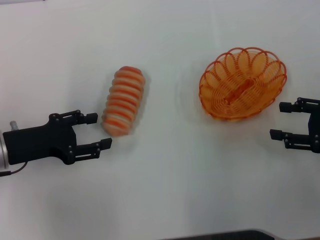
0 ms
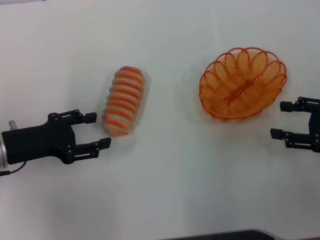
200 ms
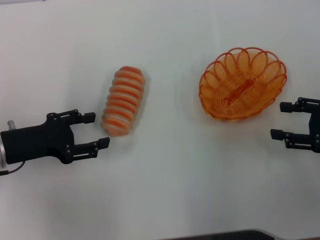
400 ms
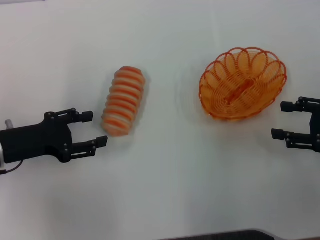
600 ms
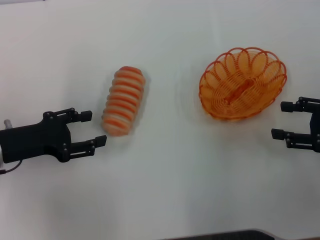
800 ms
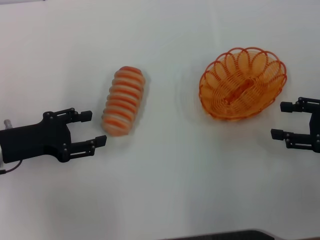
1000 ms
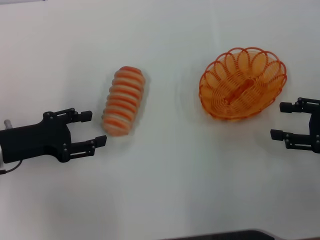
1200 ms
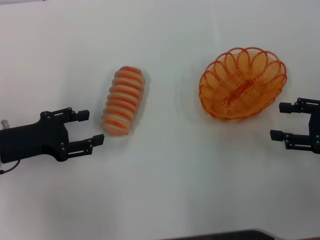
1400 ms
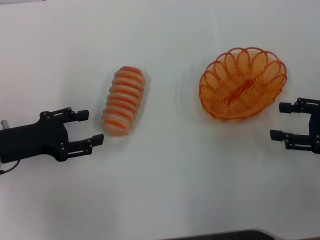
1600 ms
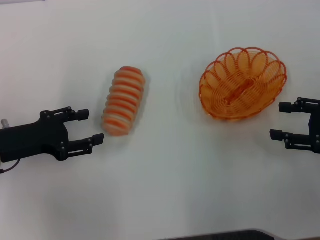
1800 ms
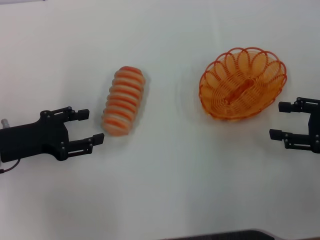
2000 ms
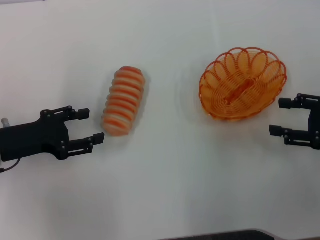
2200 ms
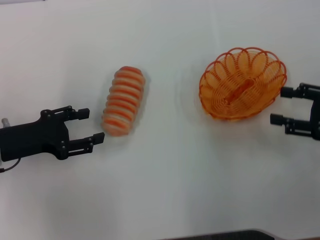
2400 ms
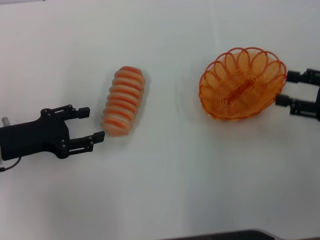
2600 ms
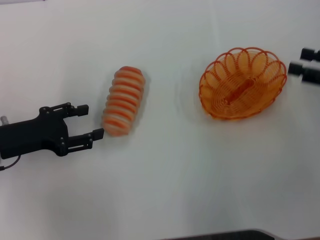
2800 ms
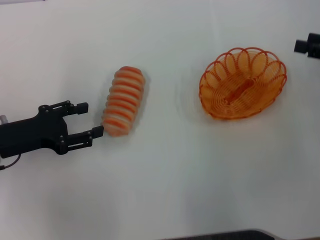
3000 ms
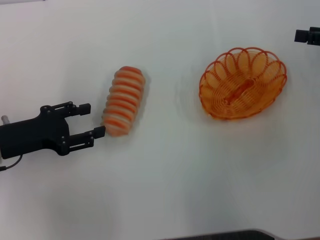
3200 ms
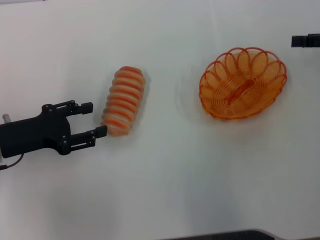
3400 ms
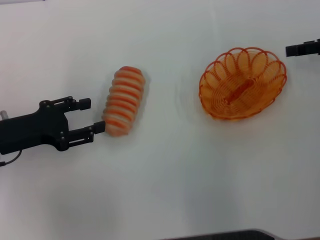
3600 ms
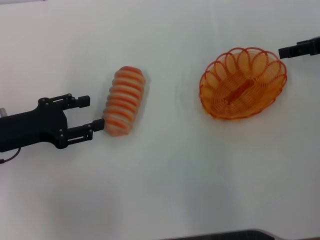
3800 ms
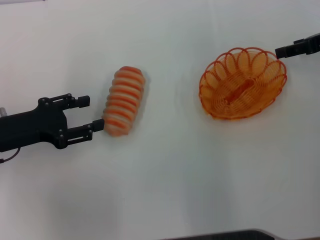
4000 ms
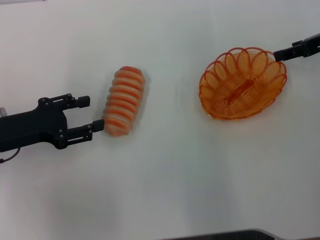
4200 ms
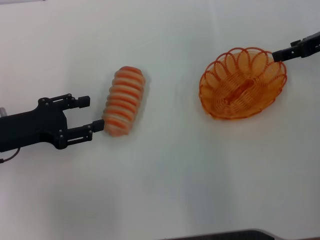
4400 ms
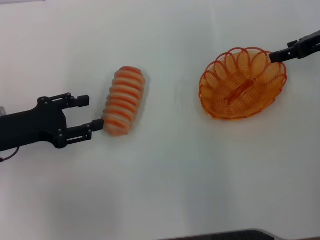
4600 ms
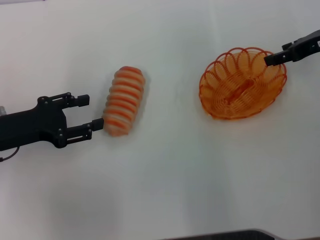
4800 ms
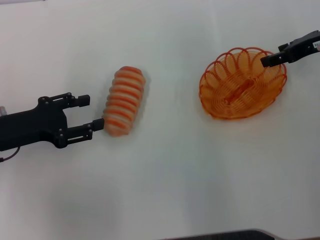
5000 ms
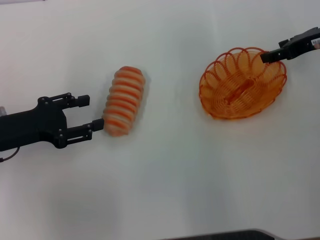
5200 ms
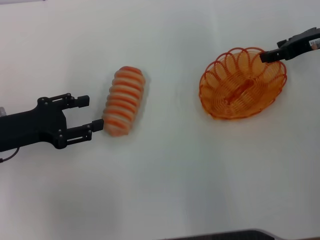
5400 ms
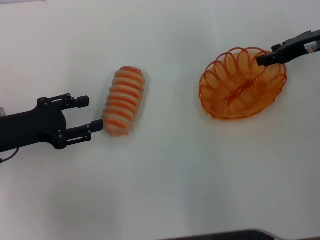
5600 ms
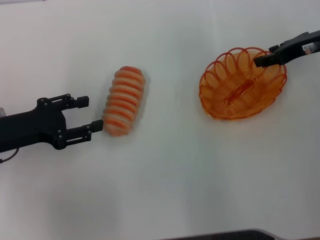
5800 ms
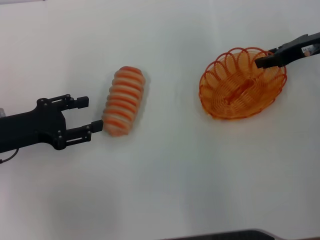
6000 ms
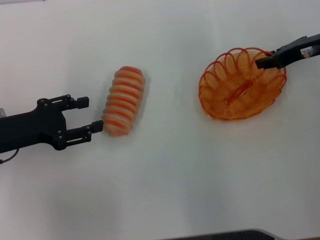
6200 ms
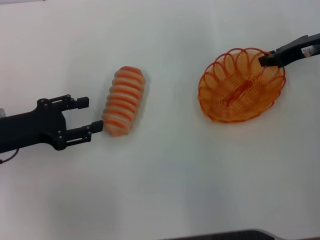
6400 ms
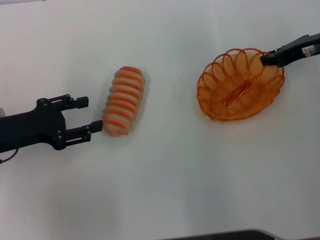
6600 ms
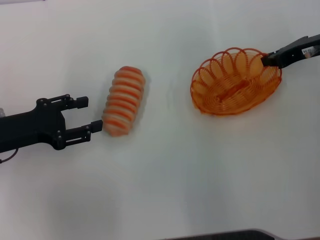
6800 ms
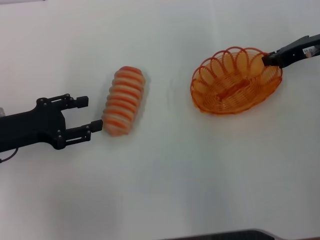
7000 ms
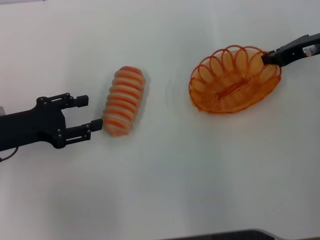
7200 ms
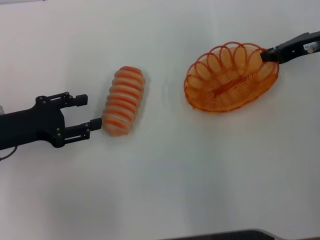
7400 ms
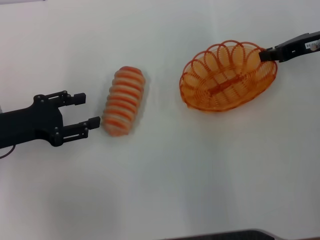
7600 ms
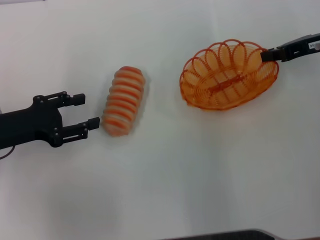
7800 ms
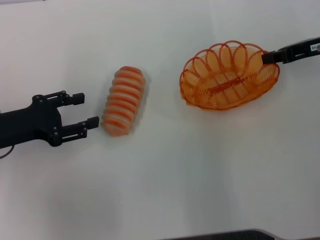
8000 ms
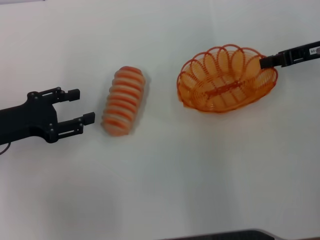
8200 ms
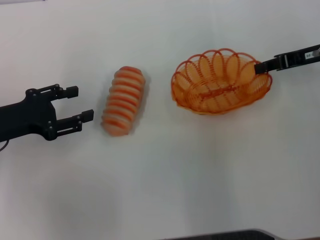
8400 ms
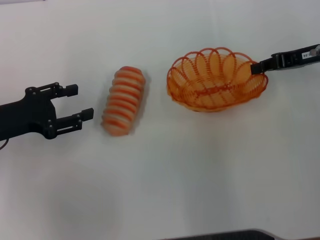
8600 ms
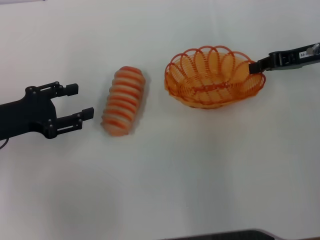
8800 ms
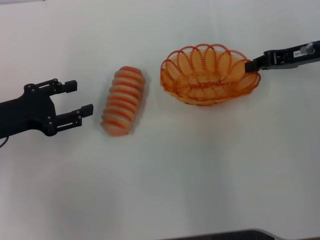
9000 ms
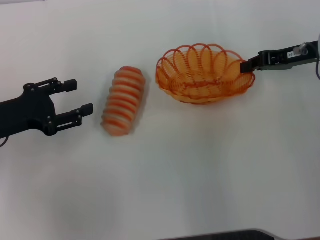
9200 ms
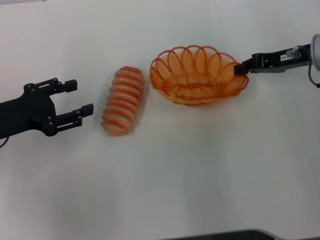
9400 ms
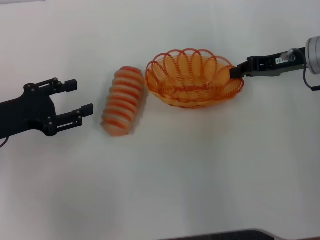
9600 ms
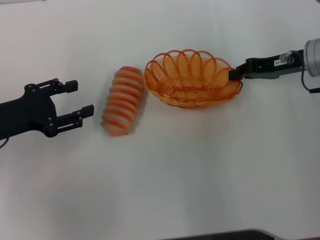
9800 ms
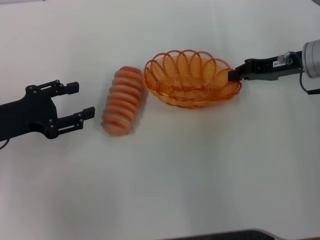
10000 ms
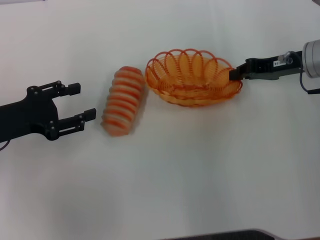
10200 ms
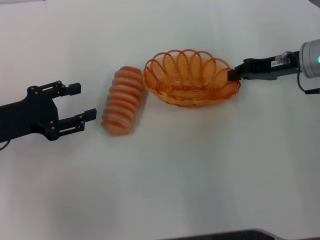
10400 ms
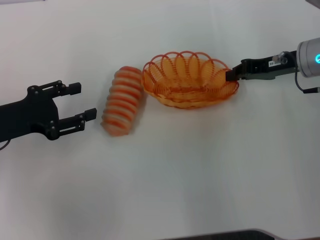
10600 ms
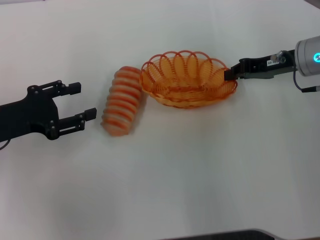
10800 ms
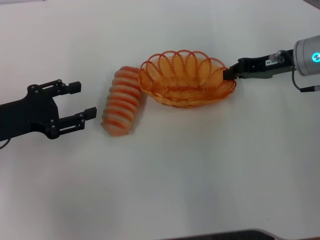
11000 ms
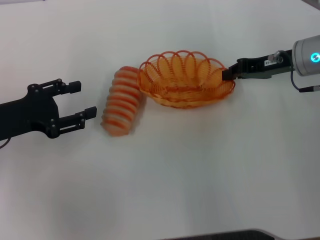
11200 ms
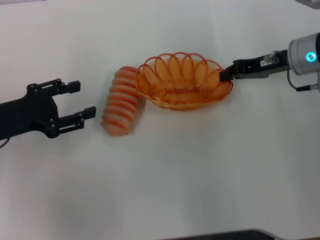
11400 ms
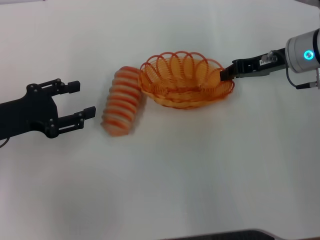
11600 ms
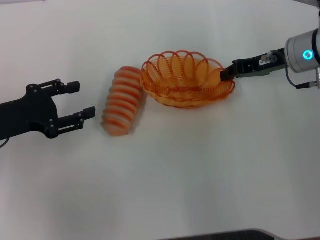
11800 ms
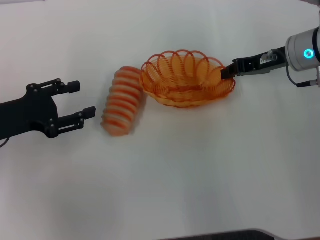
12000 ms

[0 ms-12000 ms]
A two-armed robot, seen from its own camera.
Step, 0 ms to 7400 ms: Pick up the basket with the right gripper.
0 ms to 1600 ms: The two grippers keep their place.
1600 ms to 3000 ms: The right gripper heads forward and upward, covering some 10 cm.
3000 ms to 4400 ms: The right gripper shifts roughly 10 cm forward.
4400 ms to 6000 ms: The grippers move only a little.
6000 ms to 7600 ms: The right gripper closes its fingers.
9000 ms to 12000 ms: The grippers make only small movements.

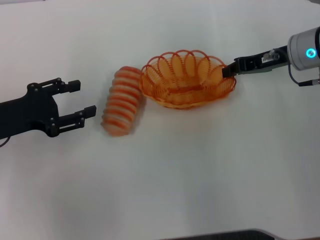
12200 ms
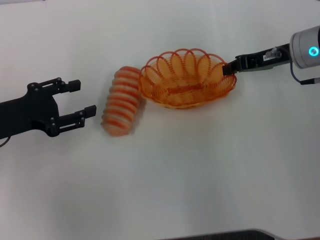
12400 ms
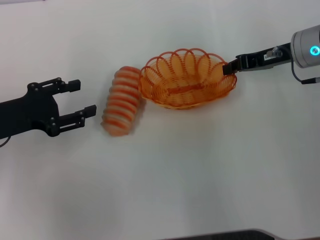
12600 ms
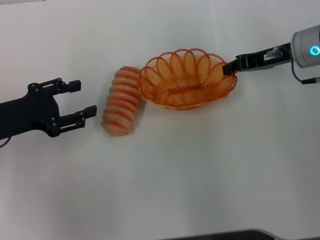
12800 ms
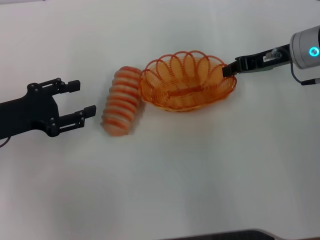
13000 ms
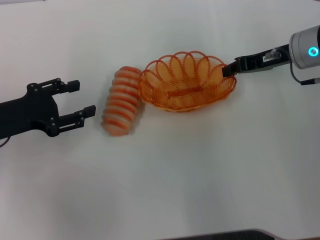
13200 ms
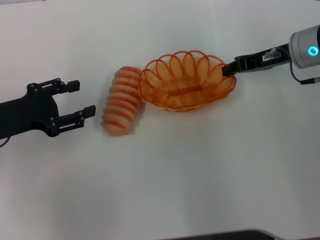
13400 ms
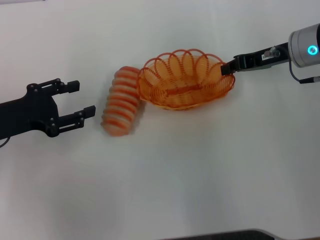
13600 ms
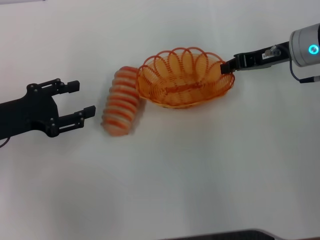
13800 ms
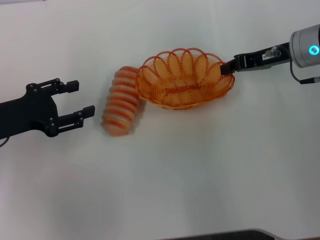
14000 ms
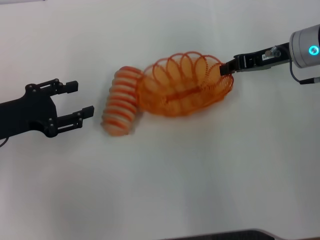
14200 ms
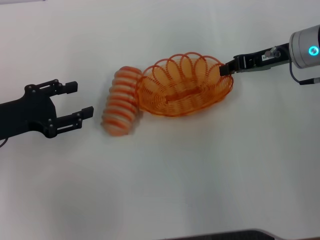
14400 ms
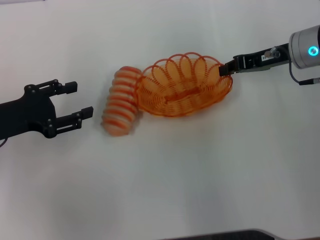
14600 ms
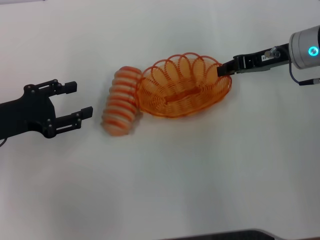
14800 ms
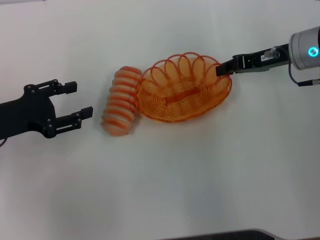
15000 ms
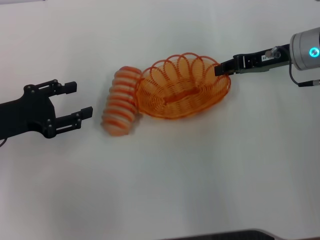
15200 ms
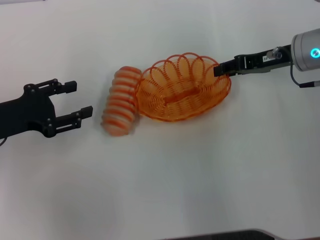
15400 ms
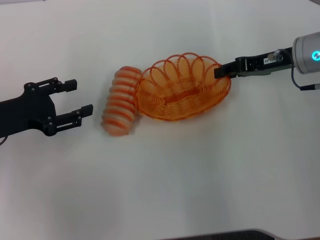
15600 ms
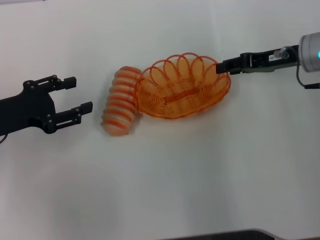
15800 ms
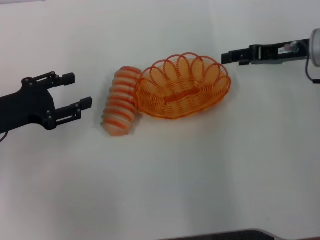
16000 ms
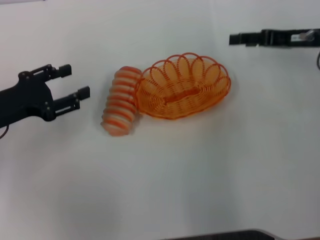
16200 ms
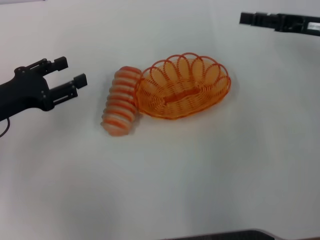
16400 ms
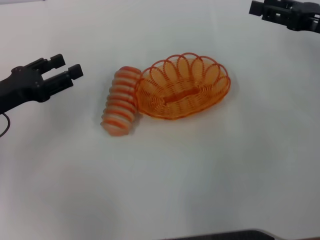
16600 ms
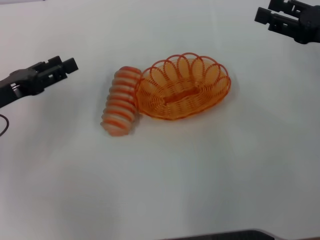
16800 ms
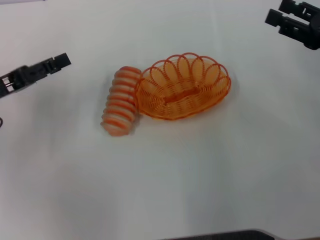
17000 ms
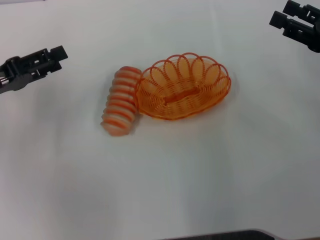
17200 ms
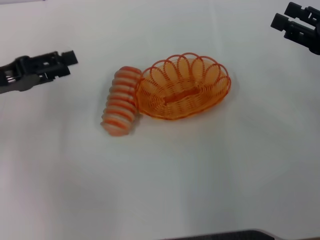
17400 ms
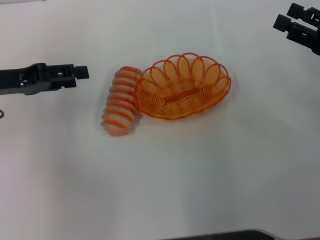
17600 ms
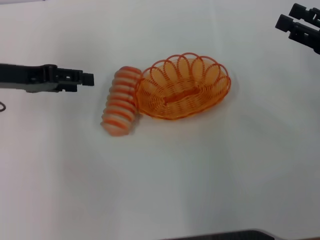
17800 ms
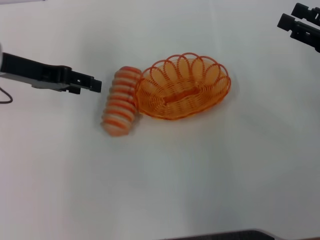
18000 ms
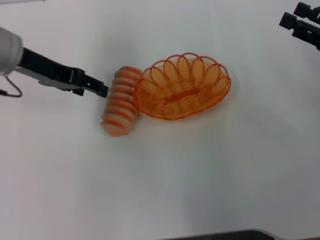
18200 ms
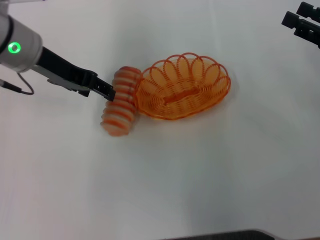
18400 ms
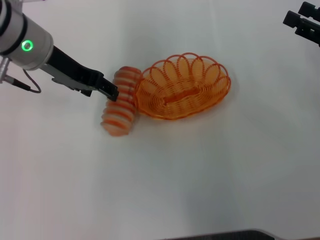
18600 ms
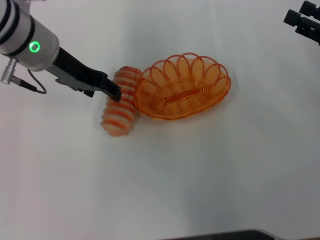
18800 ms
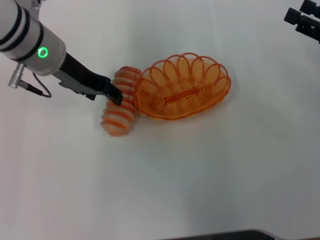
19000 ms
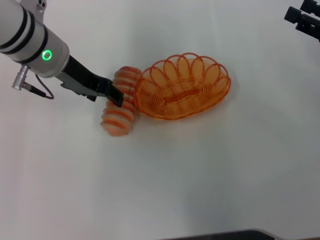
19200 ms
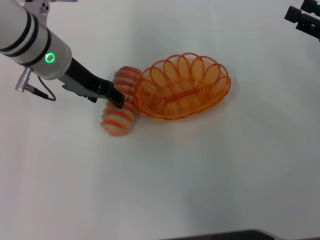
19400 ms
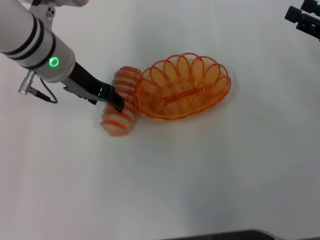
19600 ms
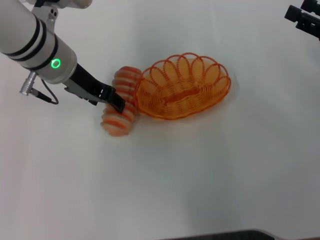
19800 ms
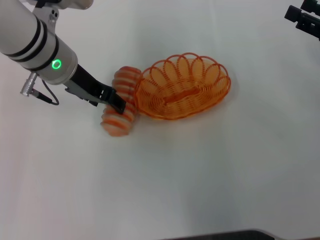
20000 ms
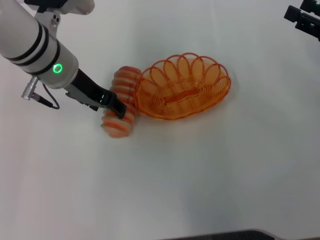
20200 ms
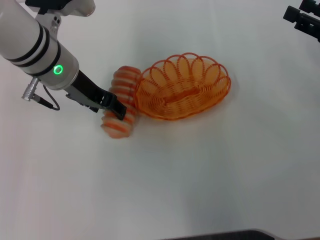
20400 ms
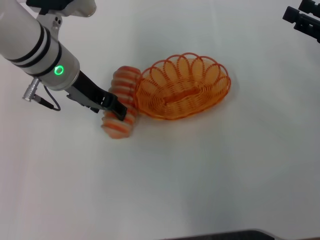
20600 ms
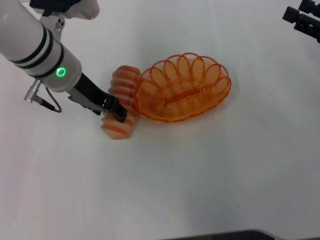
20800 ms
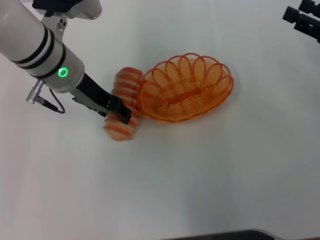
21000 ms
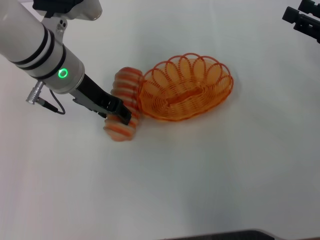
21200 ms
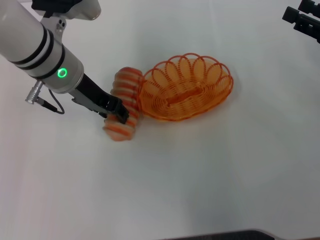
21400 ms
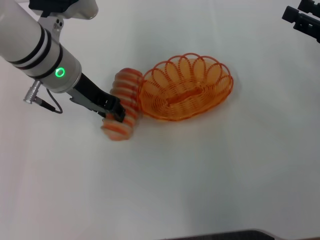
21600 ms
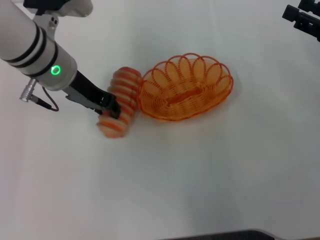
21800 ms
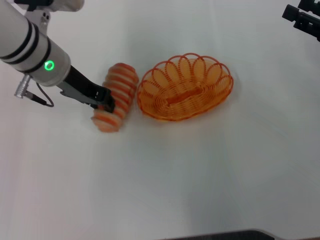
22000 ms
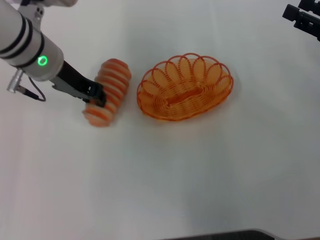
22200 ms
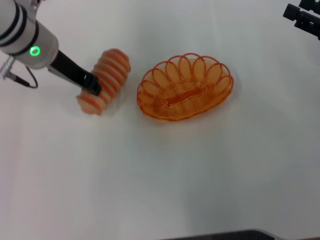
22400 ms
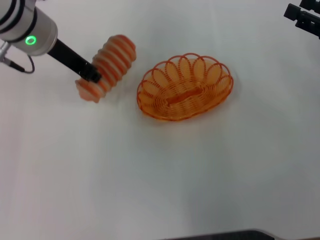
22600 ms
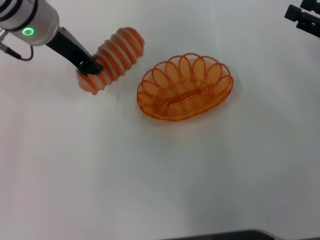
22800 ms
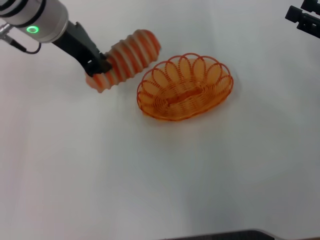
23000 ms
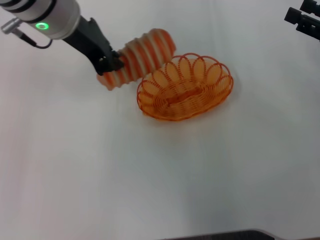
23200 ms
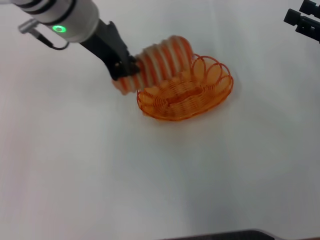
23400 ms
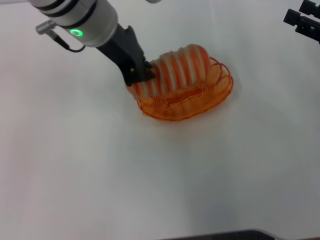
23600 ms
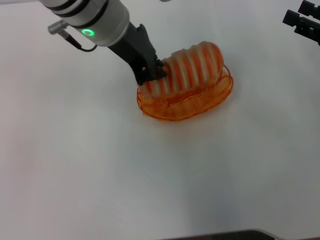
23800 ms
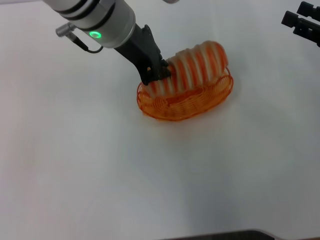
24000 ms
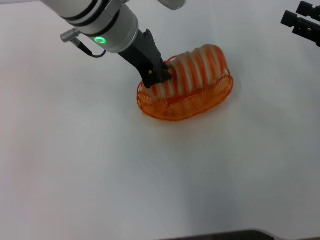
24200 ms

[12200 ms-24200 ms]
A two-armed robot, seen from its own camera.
Step, 12200 ms to 15800 ms: Place the basket in the center of view with the right gripper.
Step, 16200 ms to 22000 ms: Pick up the long bread with the left gripper.
12200 ms to 15200 ms: Both grippers stay put.
15200 ms to 16600 ms: The right gripper goes approximately 5 cm to the right, and opens its fingers.
16600 ms to 18200 ms: The right gripper shifts by some 5 cm. Meanwhile the left gripper is displaced upward, forward and to the right by roughly 15 cm.
18200 ms to 19800 ms: The left gripper heads to the right, covering approximately 5 cm.
19800 ms to 21200 ms: Neither gripper changes place.
21200 ms to 22600 ms: The left gripper shifts by approximately 5 cm, and closes up.
22600 ms to 24200 ms: The left gripper heads to the right, covering some 10 cm.
